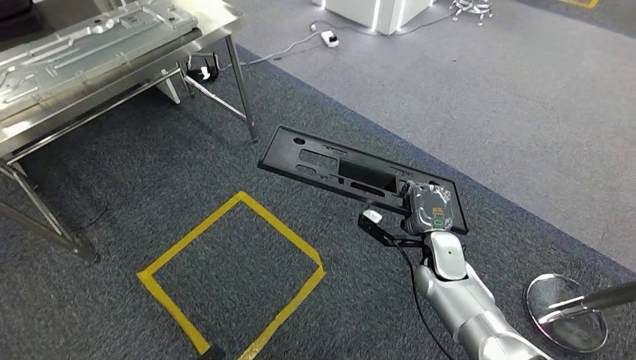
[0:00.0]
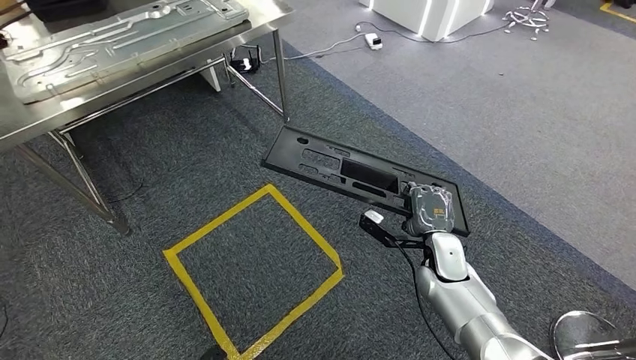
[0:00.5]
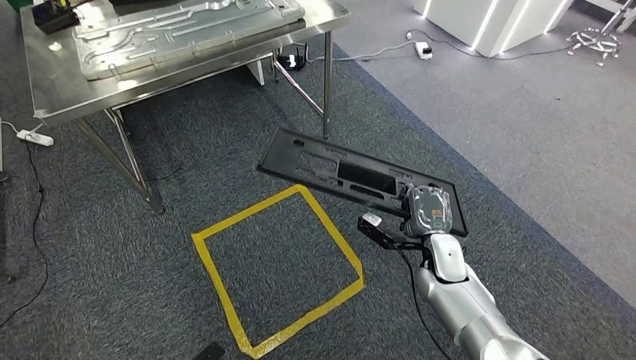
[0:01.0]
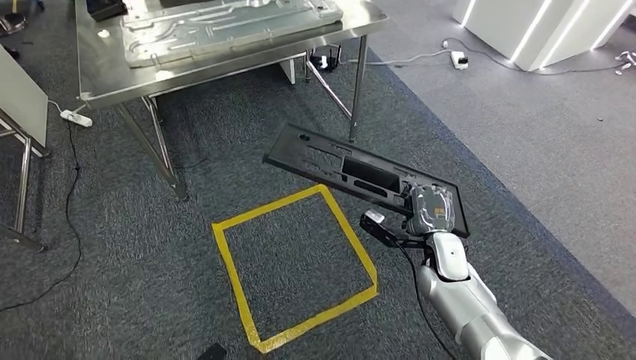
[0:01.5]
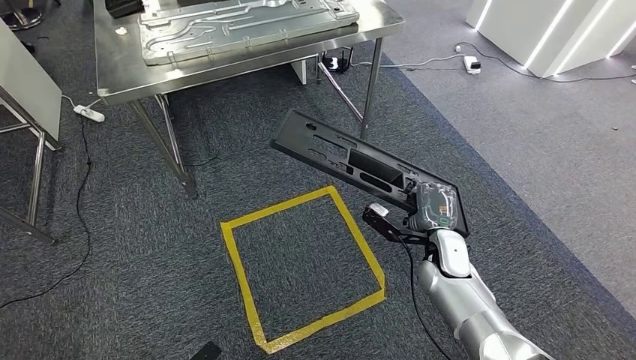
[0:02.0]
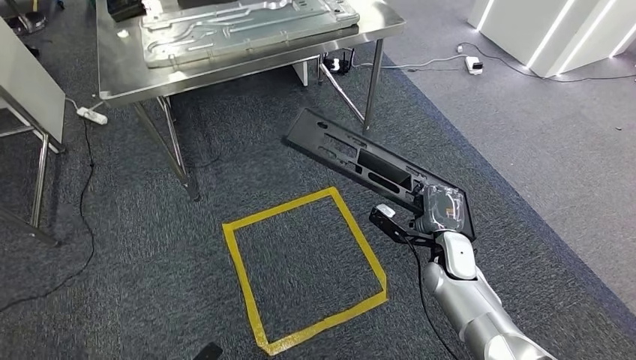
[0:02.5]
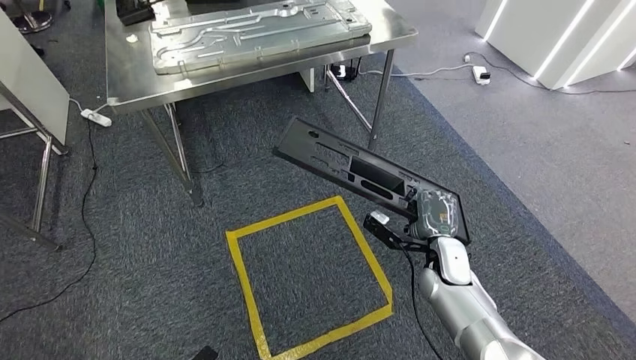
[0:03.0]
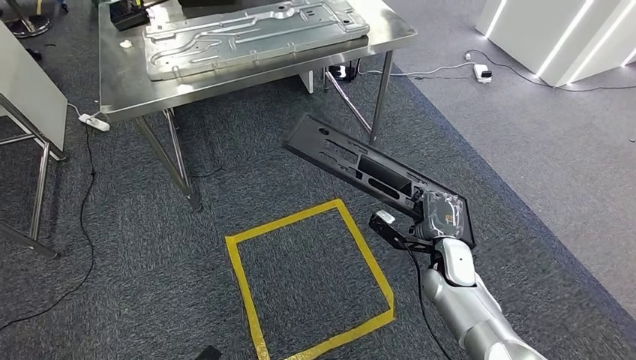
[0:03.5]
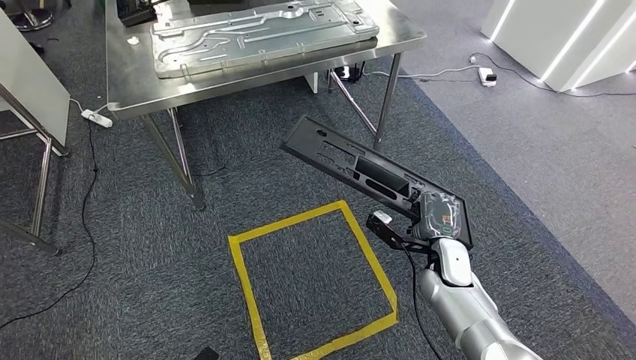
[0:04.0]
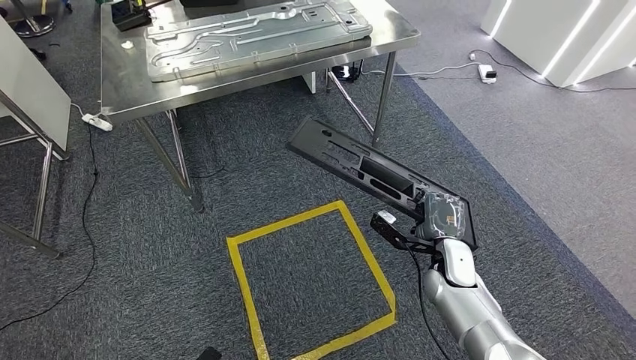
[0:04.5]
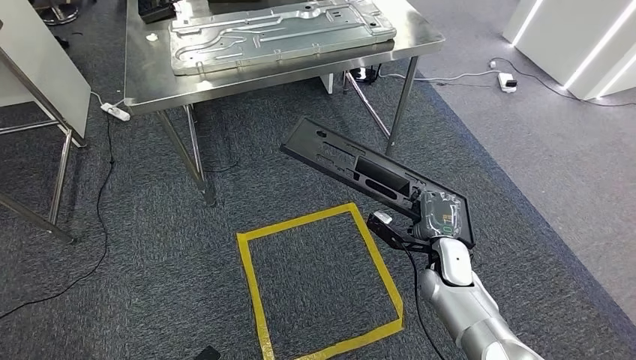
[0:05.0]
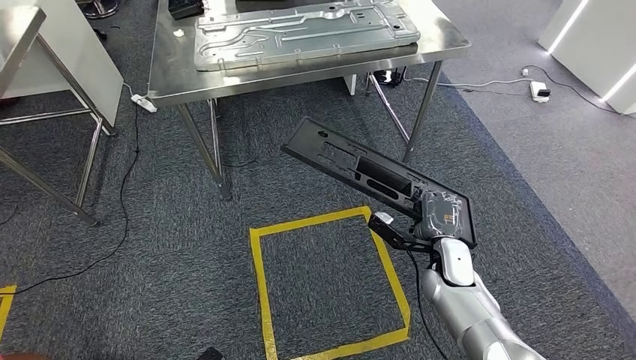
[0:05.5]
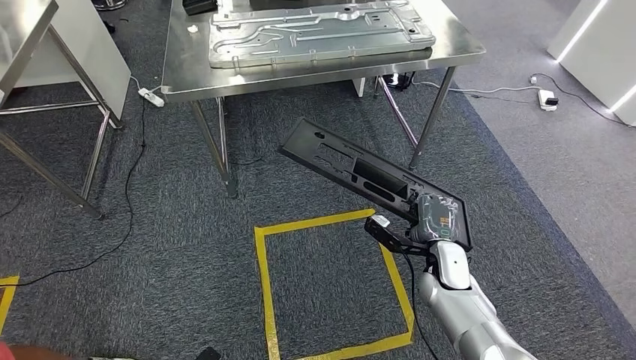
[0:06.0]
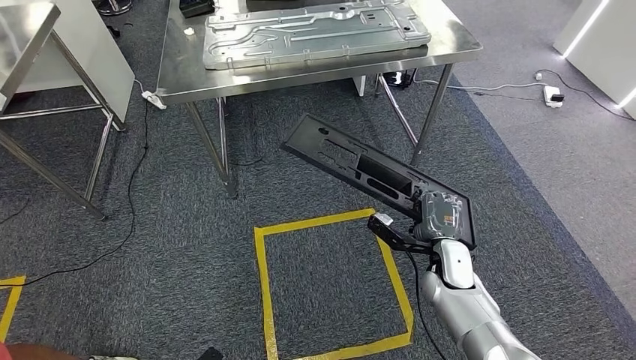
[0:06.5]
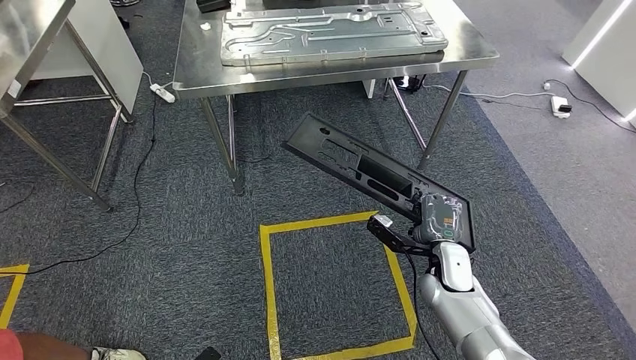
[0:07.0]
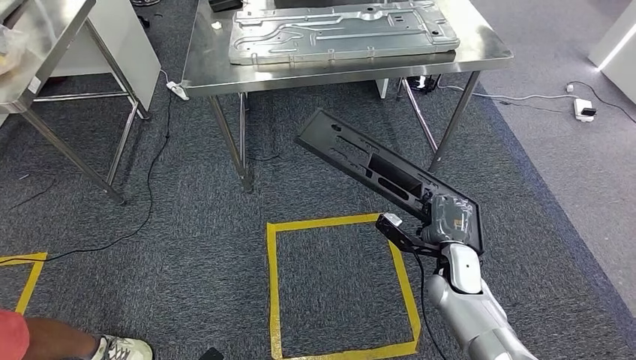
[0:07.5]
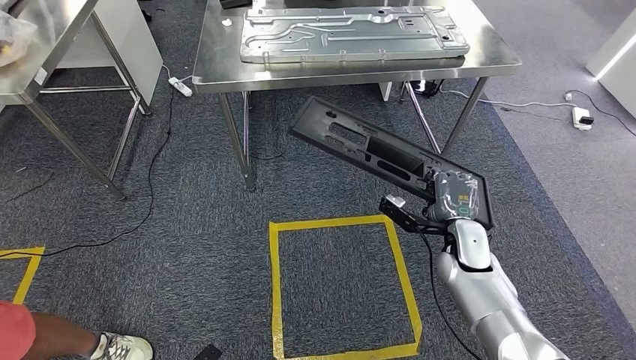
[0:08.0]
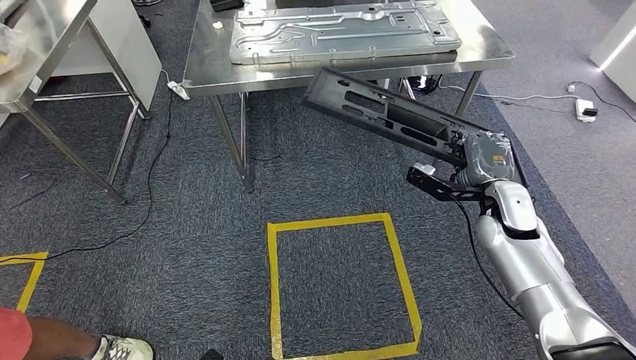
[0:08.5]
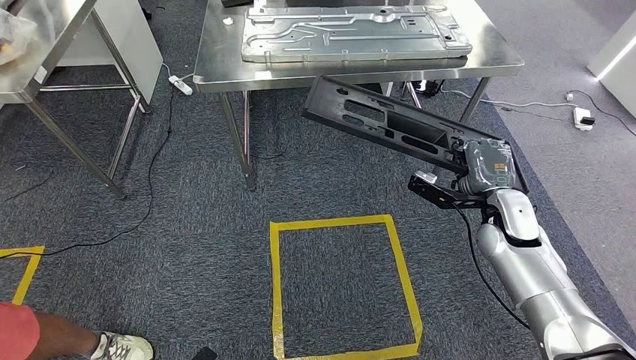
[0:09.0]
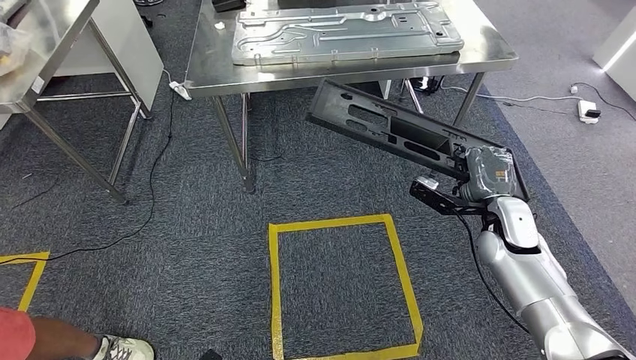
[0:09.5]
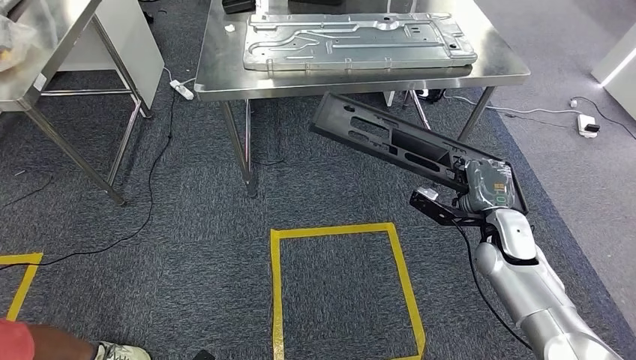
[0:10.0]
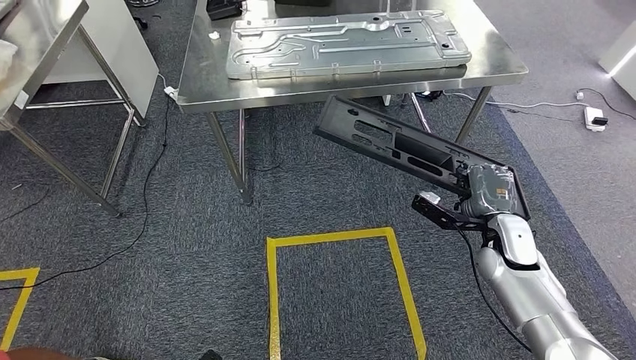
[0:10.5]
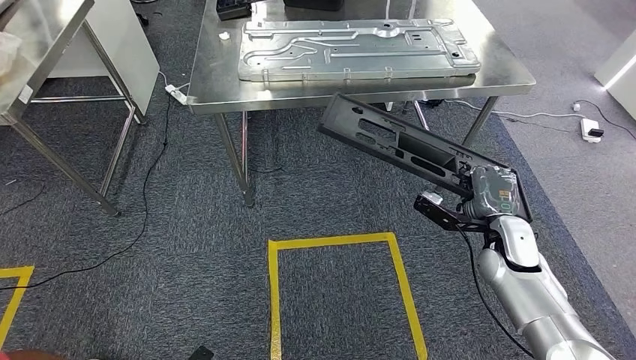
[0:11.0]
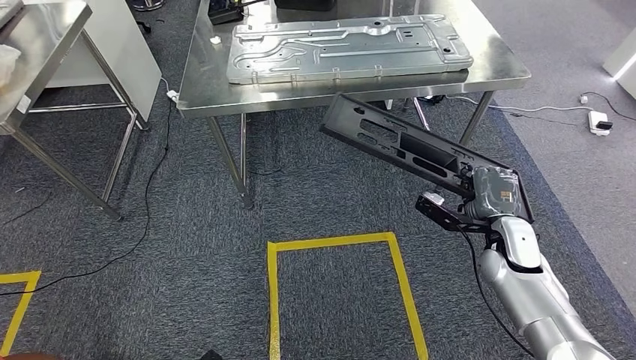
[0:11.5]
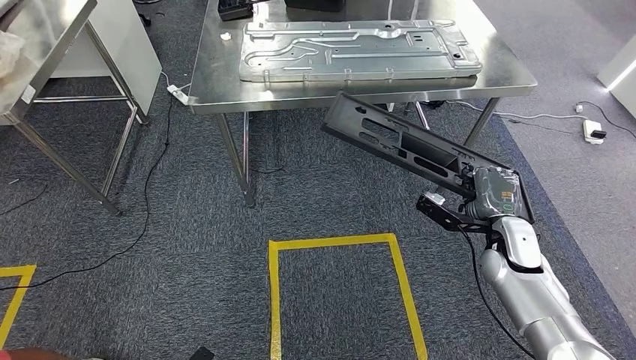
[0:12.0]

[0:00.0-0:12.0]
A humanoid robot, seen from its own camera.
0:10.0 to 0:12.0: The hands move only a little.

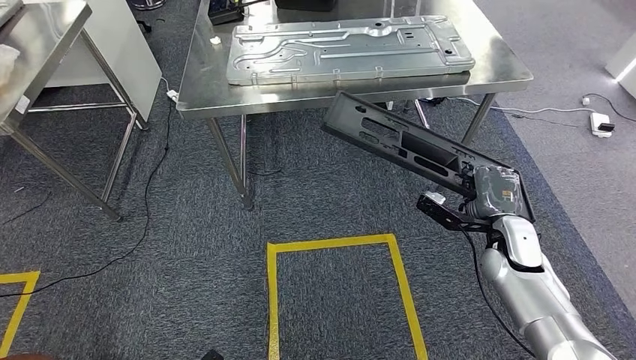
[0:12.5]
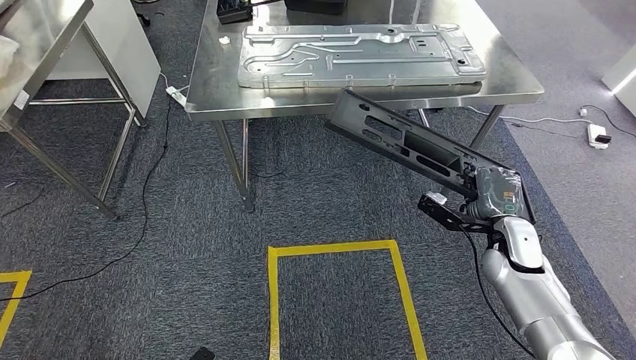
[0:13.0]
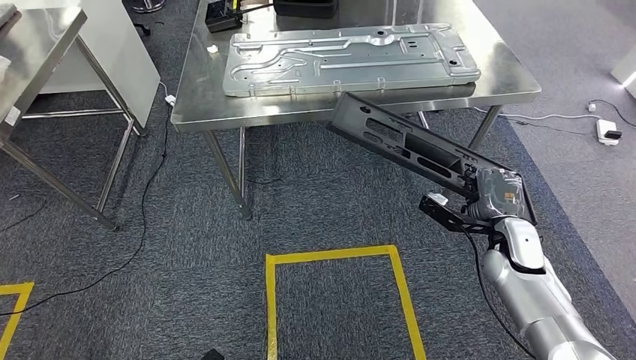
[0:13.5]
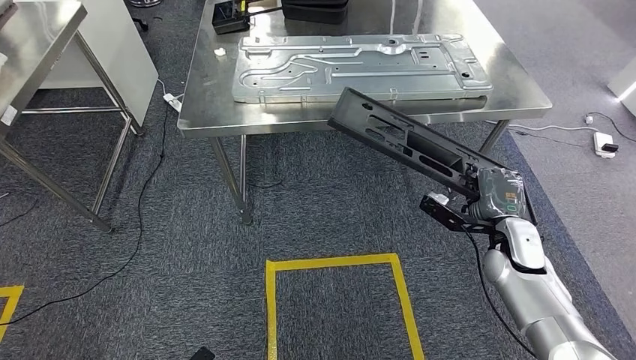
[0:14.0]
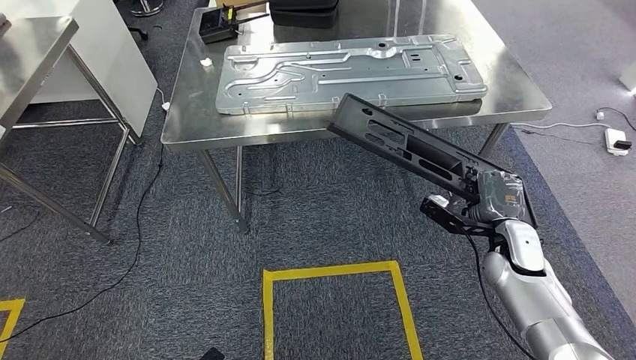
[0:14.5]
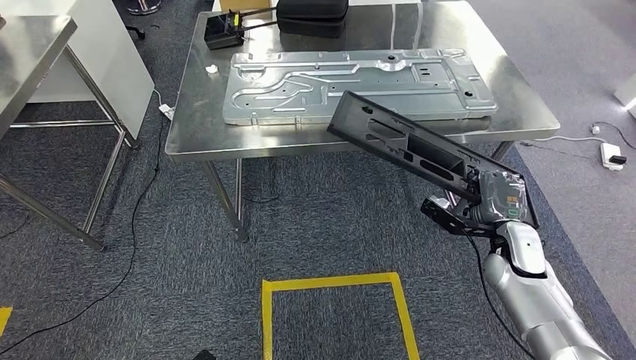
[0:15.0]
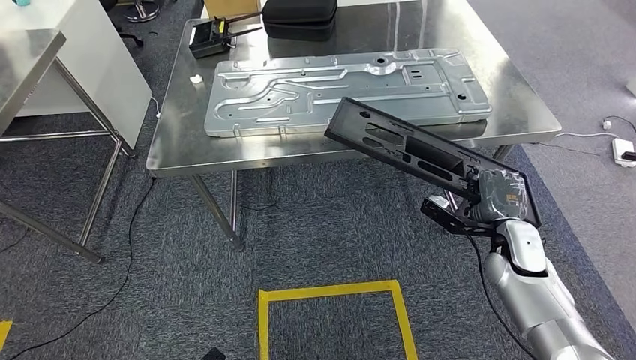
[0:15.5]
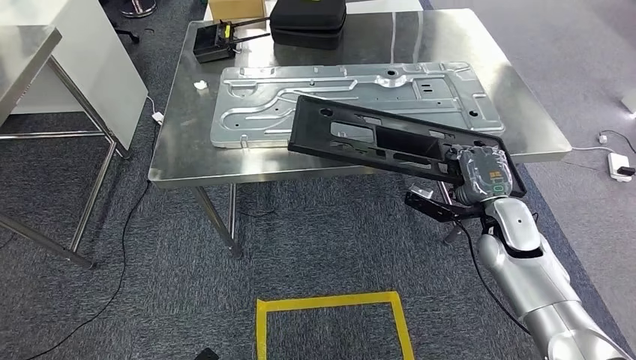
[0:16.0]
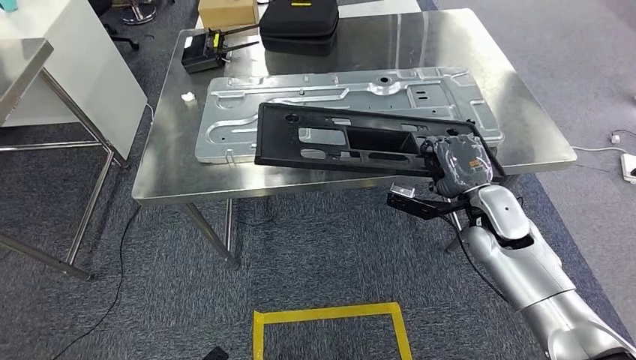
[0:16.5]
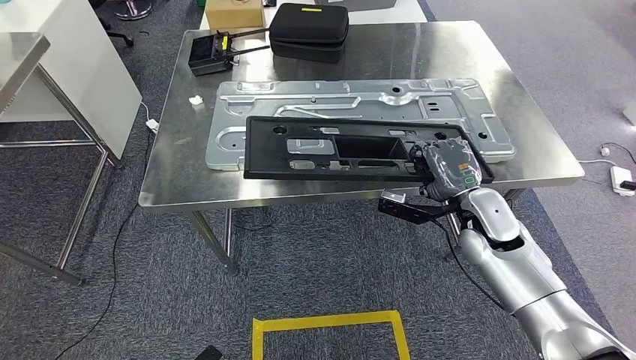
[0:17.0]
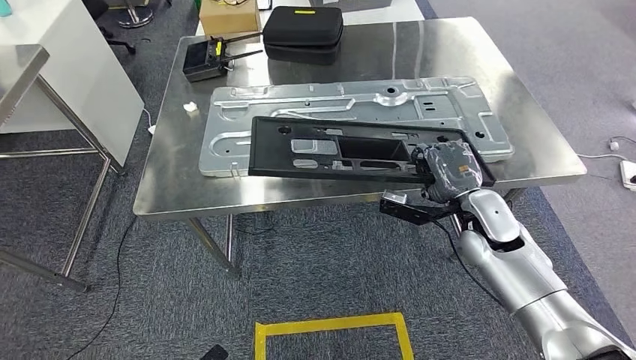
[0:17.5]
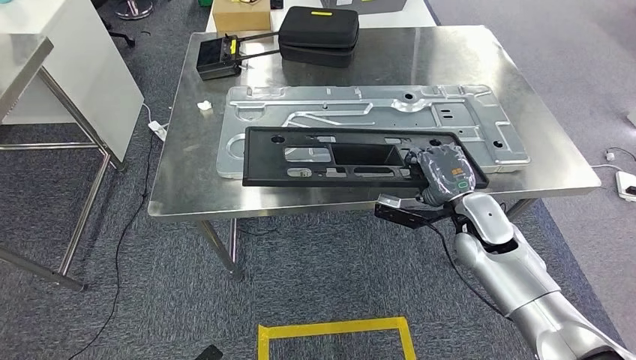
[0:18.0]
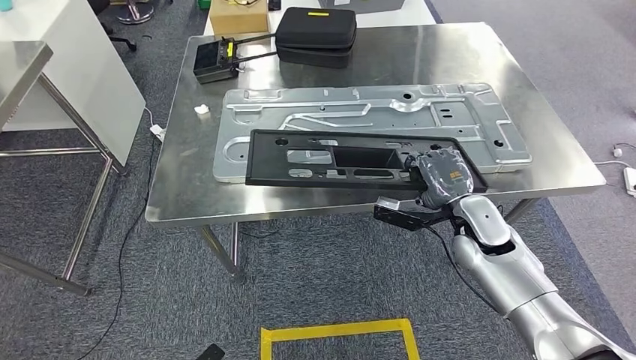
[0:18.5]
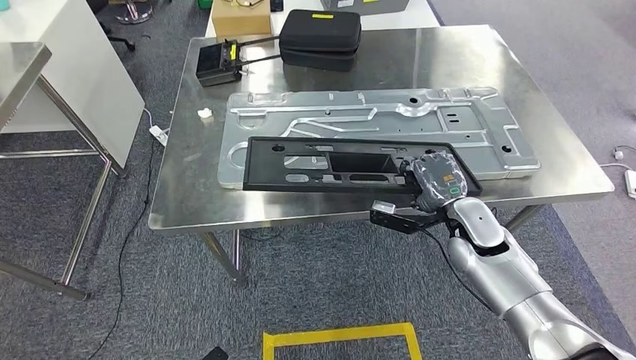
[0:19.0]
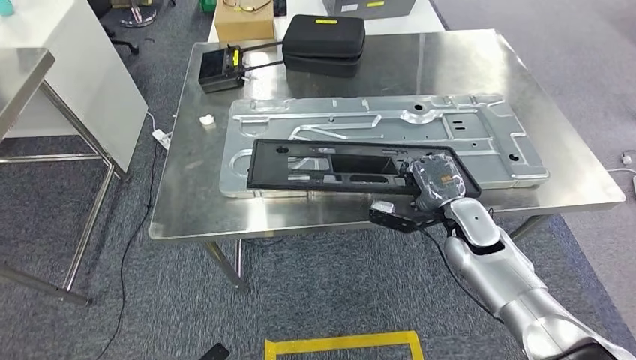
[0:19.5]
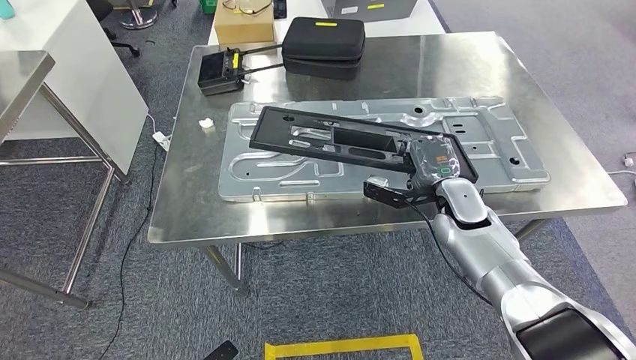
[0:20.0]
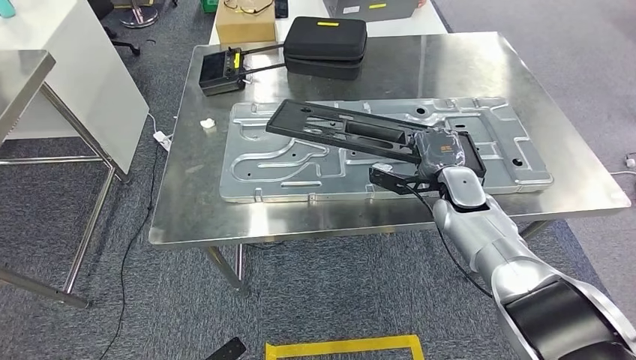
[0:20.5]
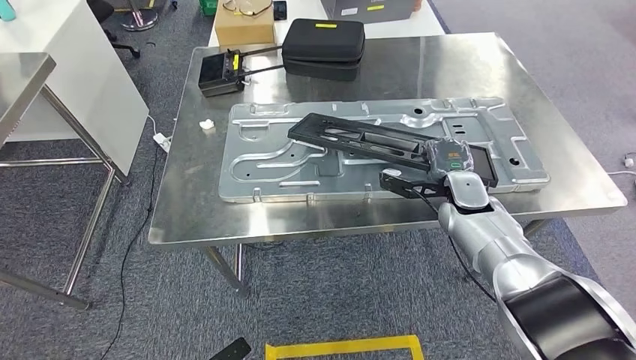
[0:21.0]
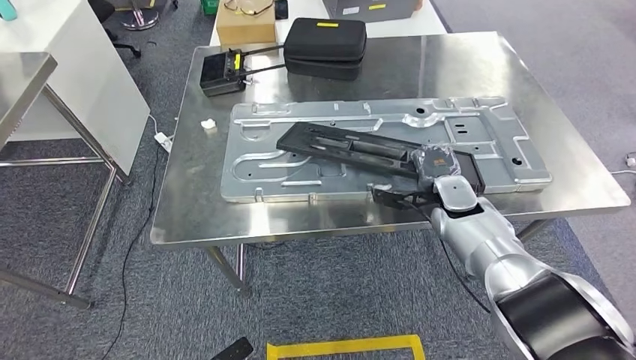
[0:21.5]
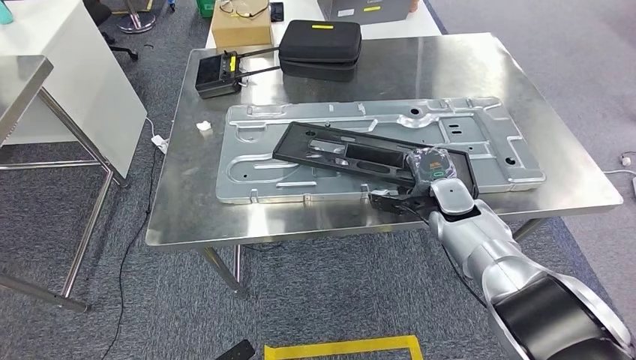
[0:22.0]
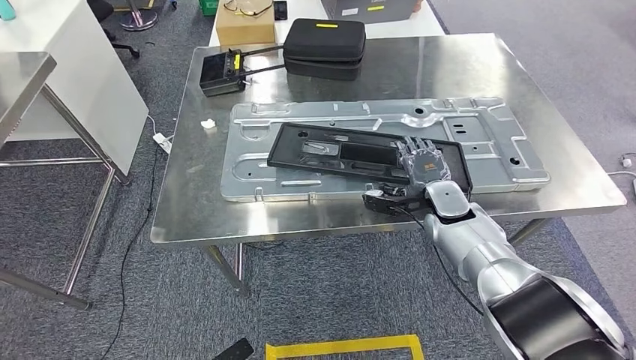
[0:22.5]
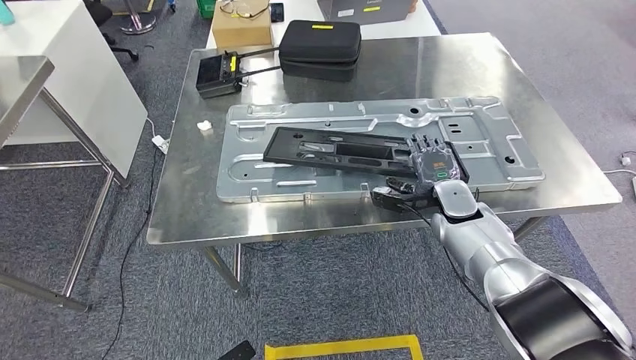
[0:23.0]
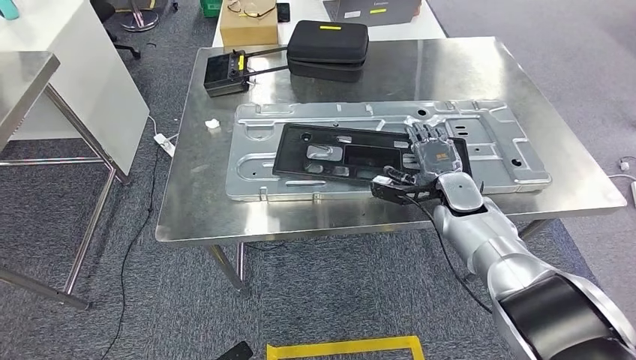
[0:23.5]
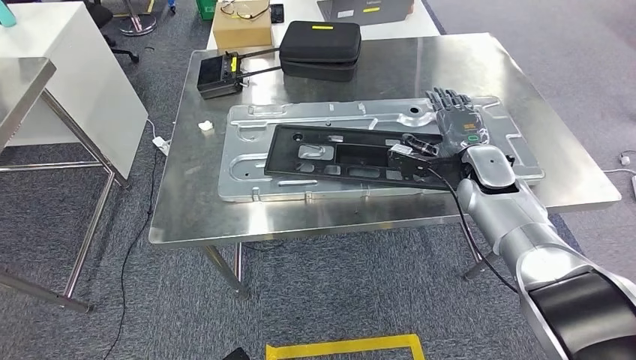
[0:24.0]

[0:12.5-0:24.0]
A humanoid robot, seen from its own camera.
0:22.0 to 0:24.0: The right hand goes about 5 cm upward.
